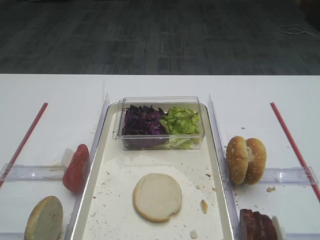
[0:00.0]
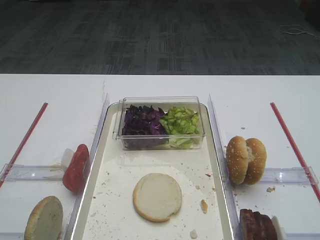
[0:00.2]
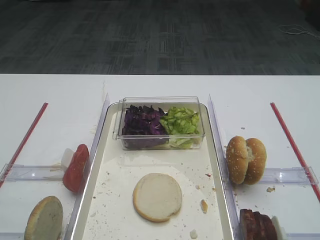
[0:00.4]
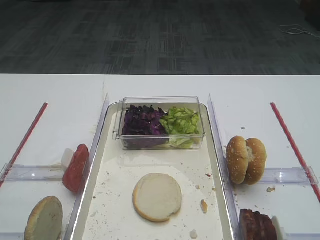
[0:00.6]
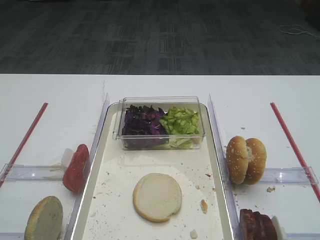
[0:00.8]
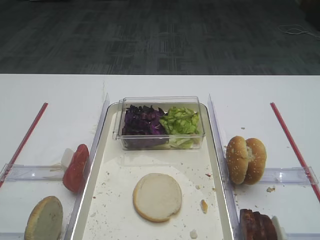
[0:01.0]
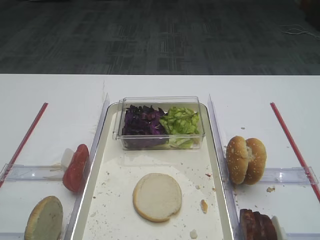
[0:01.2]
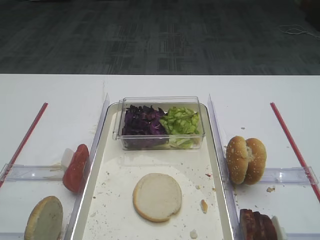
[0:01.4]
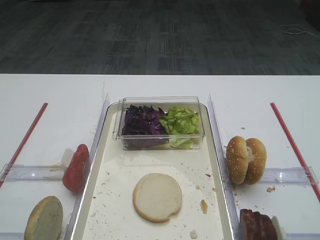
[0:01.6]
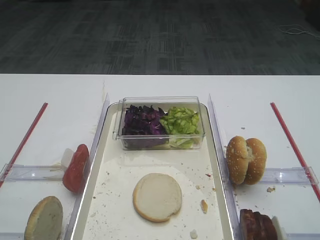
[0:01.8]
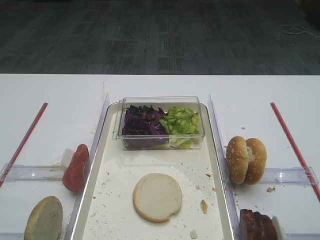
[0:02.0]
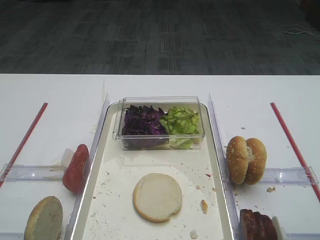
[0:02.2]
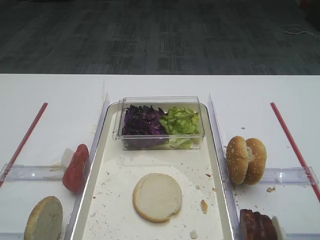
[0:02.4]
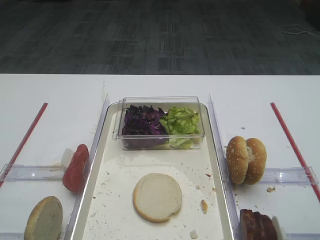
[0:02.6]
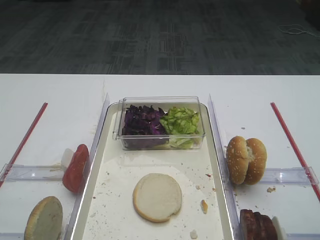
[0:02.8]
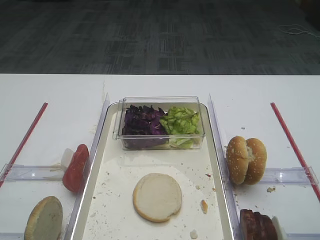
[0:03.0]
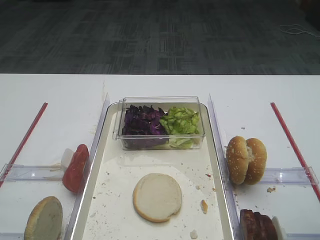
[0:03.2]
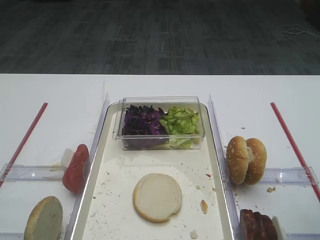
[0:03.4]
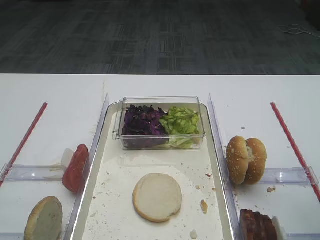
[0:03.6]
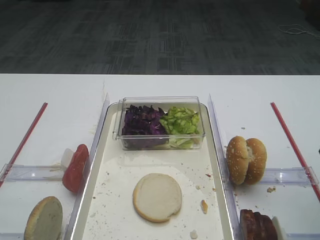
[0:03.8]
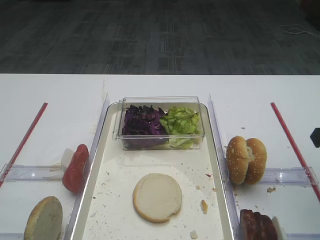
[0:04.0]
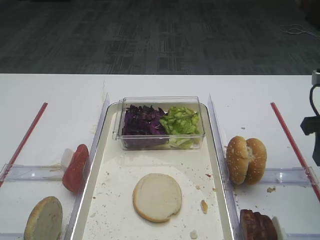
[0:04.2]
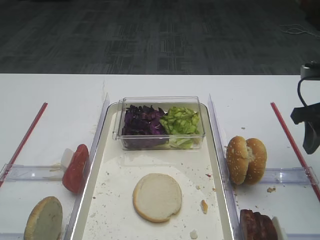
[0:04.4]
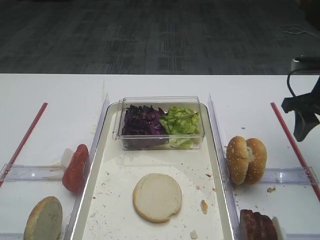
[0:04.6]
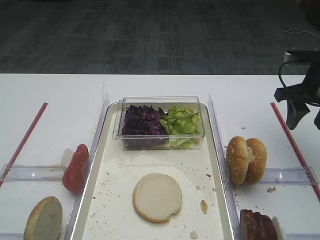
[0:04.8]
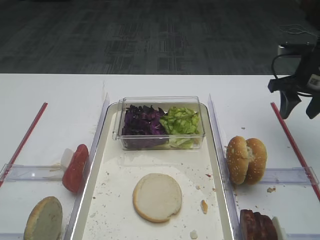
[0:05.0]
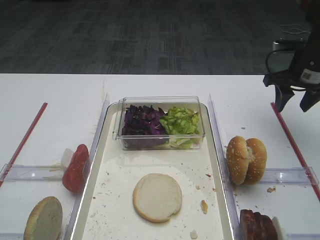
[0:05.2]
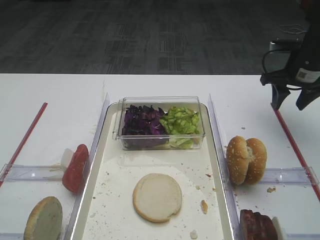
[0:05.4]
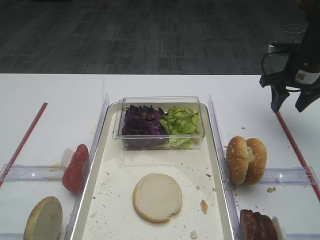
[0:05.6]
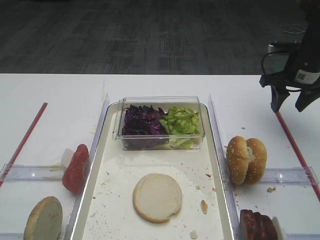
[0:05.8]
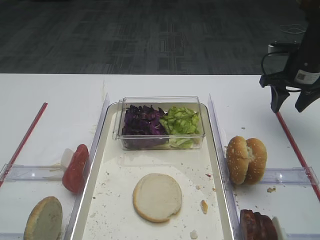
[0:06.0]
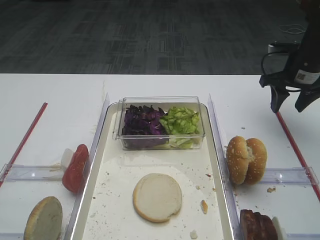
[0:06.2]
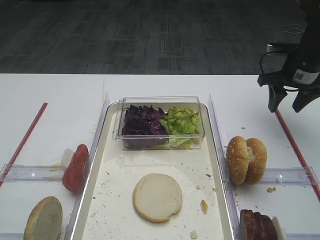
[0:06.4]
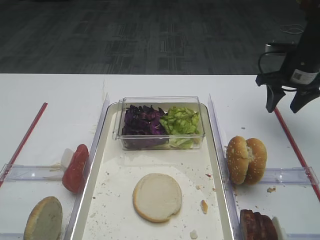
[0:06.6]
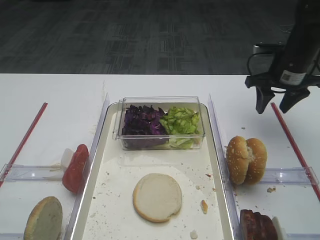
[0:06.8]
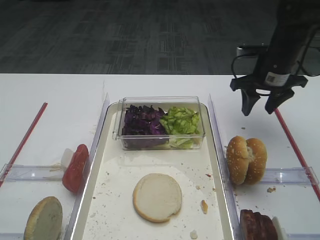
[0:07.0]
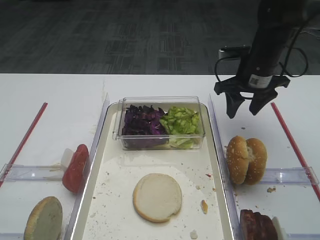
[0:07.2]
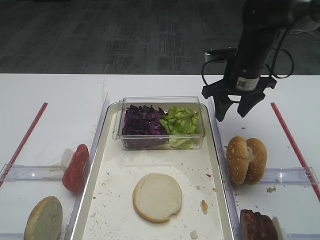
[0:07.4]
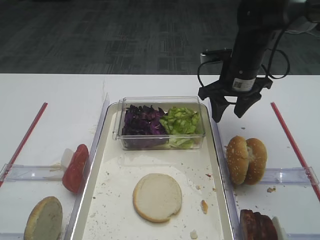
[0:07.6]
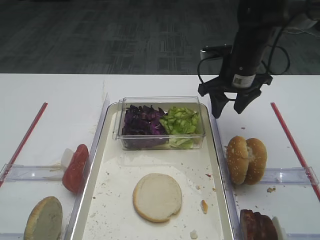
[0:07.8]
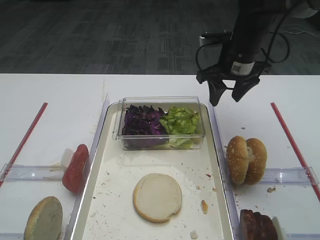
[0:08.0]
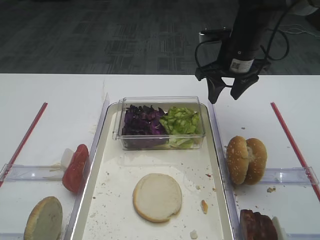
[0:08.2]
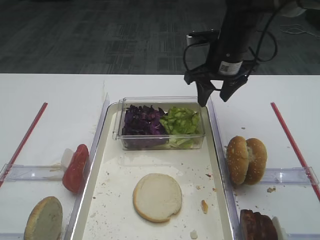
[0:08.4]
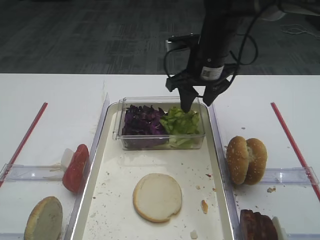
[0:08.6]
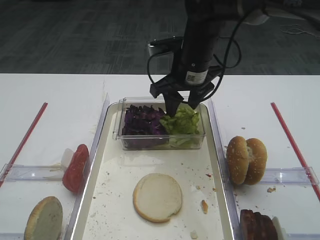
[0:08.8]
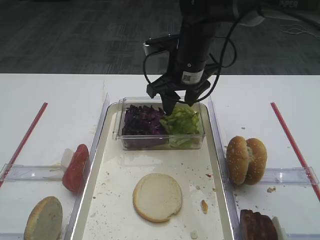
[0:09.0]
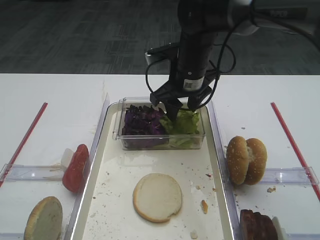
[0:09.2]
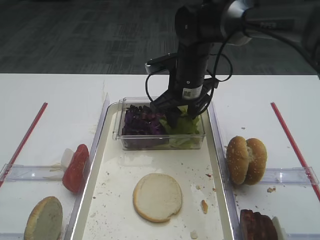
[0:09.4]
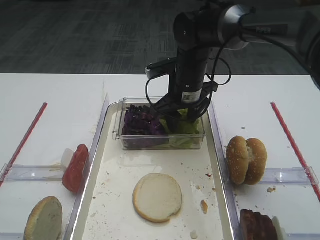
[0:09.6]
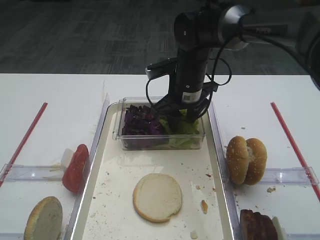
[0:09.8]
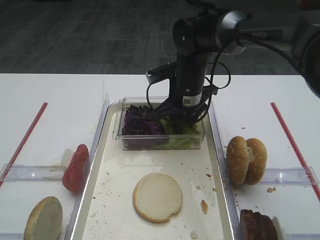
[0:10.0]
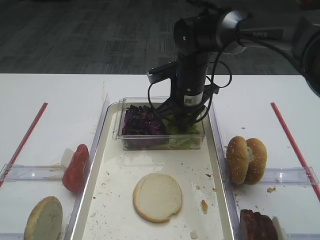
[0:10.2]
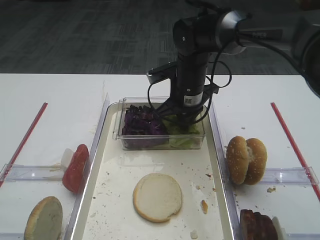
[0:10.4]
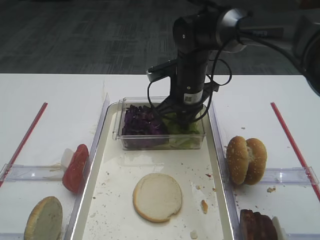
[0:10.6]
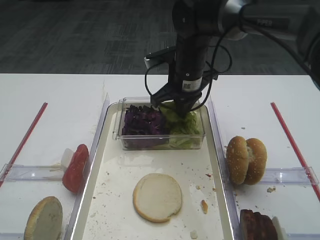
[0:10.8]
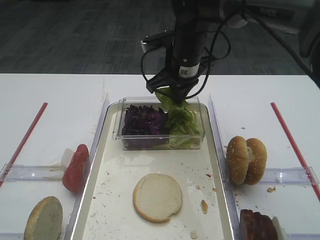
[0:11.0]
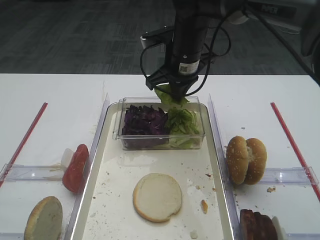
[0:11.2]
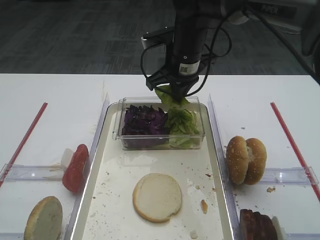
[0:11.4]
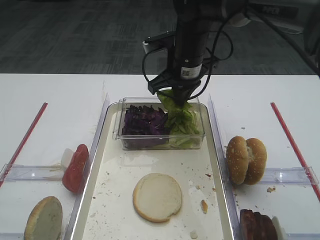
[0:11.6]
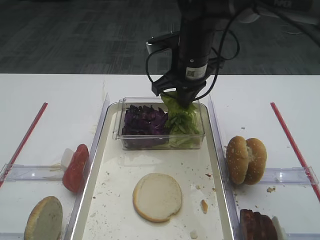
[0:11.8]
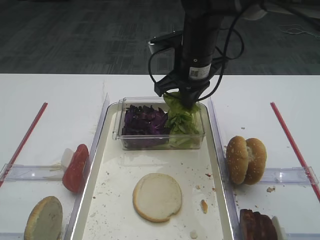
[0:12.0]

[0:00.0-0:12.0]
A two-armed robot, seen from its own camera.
Step, 0:00.0 to 0:10.8: Pick up the lettuce leaf with the right gripper.
0:03.0 to 0:04.4: The right gripper goes roughly 20 cm forward.
0:04.4 to 0:06.0: The right gripper heads forward, covering about 15 cm.
0:06.0 to 0:07.6: The right gripper is displaced to the left by some 15 cm.
0:07.6 to 0:09.0: The right gripper travels to the left by some 10 cm.
0:09.0 to 0:10.4: The right gripper is displaced downward by approximately 5 cm, and closes.
0:10.4 to 0:12.0: The right gripper is displaced upward by about 5 cm.

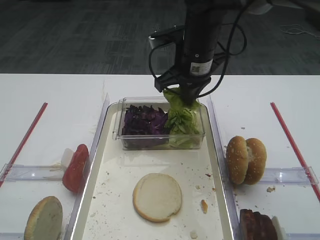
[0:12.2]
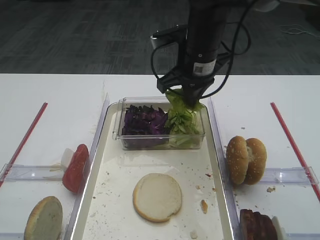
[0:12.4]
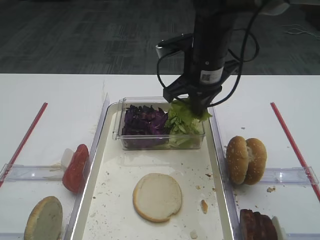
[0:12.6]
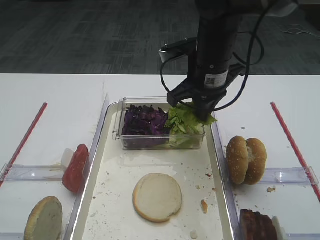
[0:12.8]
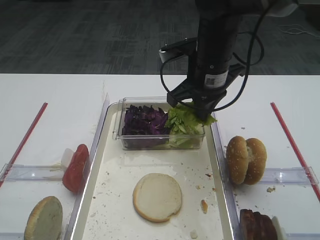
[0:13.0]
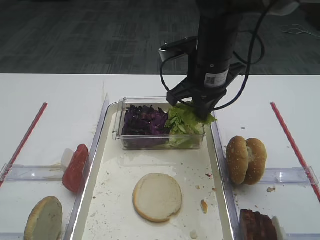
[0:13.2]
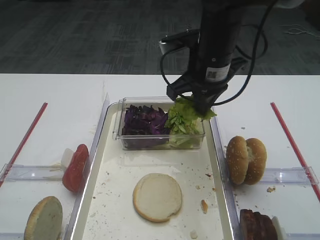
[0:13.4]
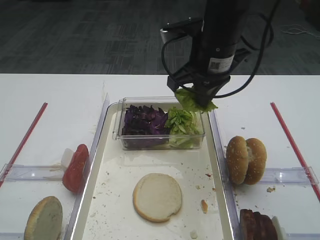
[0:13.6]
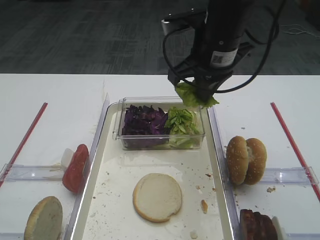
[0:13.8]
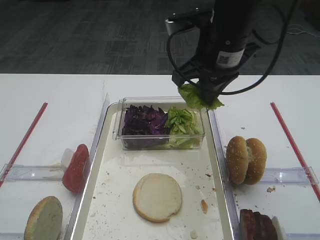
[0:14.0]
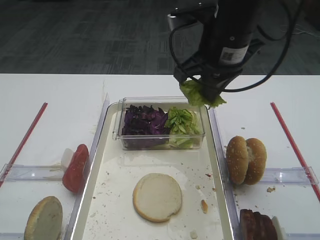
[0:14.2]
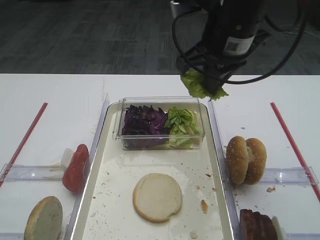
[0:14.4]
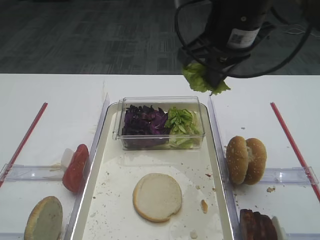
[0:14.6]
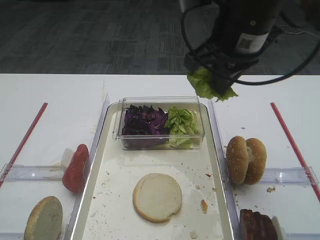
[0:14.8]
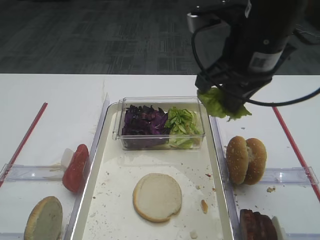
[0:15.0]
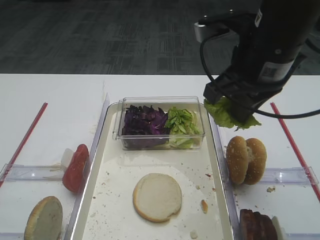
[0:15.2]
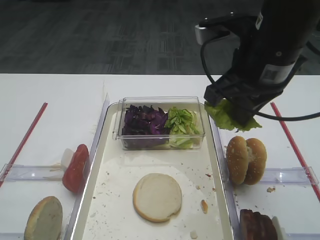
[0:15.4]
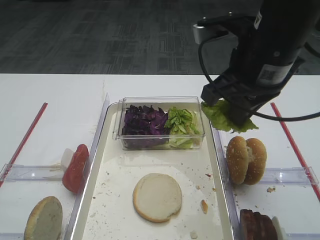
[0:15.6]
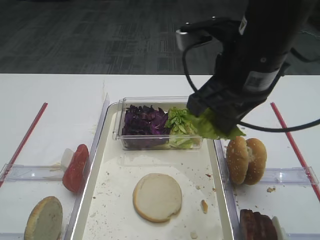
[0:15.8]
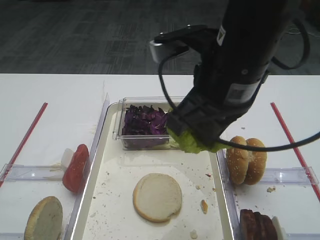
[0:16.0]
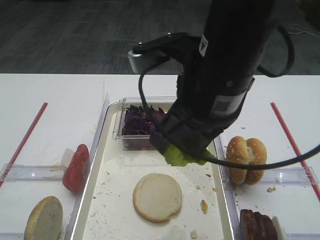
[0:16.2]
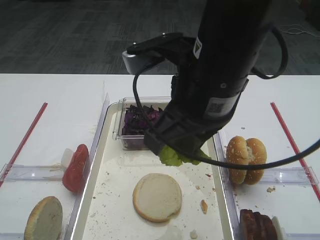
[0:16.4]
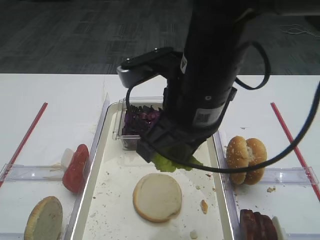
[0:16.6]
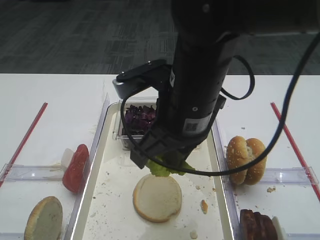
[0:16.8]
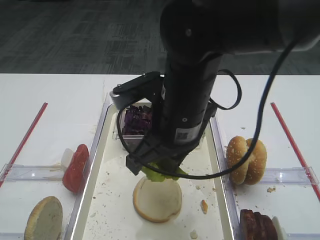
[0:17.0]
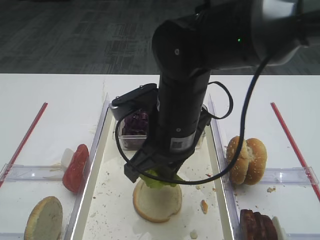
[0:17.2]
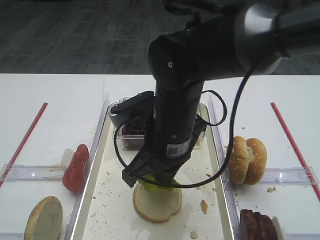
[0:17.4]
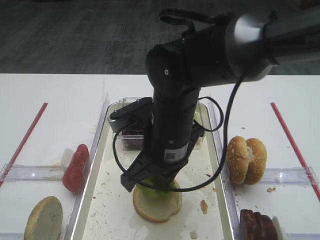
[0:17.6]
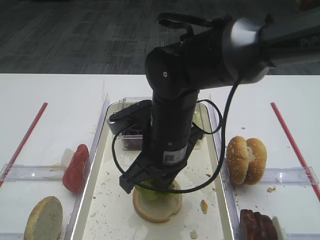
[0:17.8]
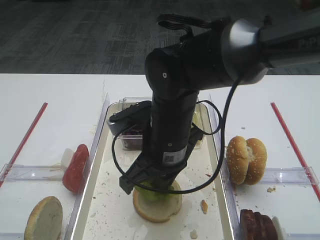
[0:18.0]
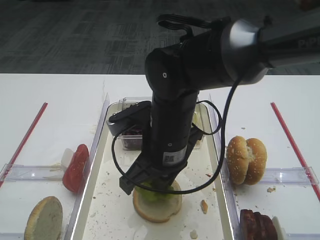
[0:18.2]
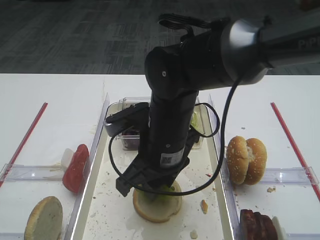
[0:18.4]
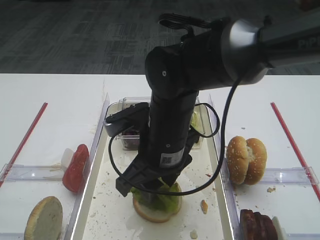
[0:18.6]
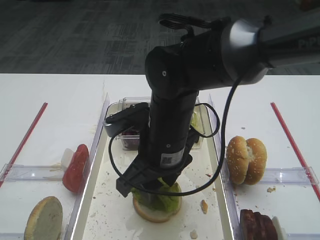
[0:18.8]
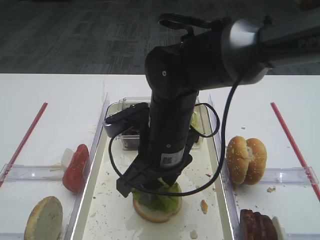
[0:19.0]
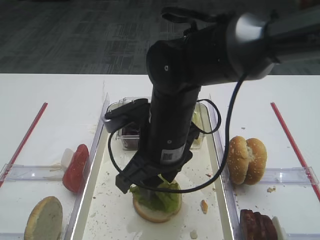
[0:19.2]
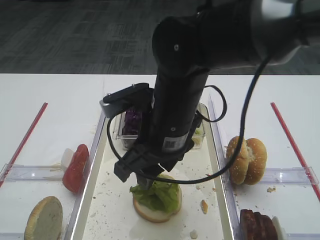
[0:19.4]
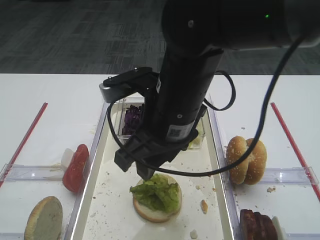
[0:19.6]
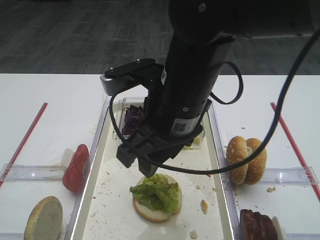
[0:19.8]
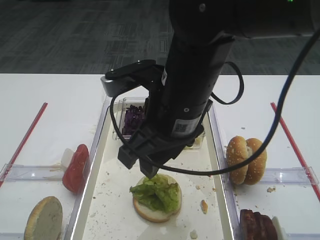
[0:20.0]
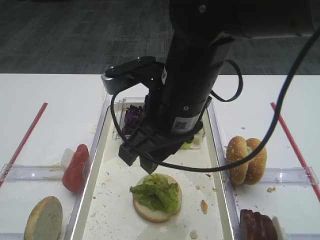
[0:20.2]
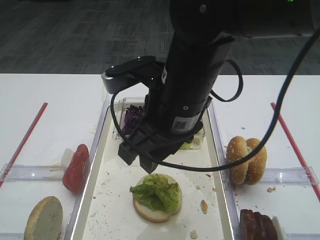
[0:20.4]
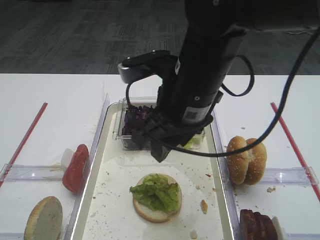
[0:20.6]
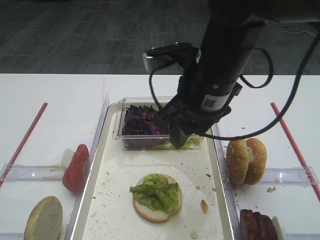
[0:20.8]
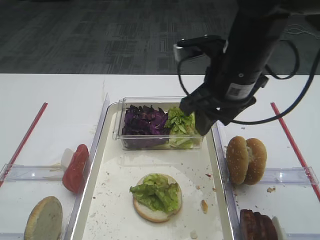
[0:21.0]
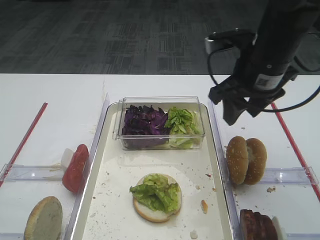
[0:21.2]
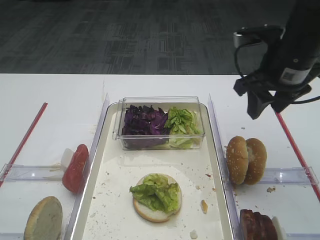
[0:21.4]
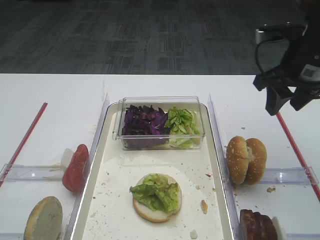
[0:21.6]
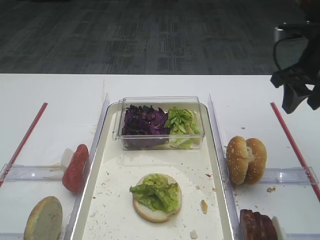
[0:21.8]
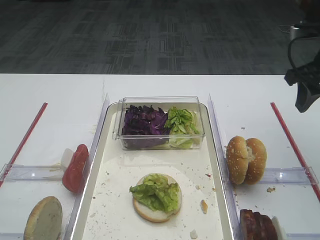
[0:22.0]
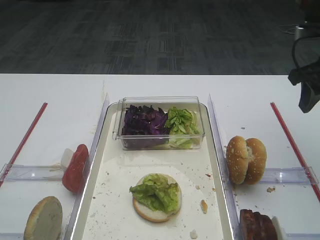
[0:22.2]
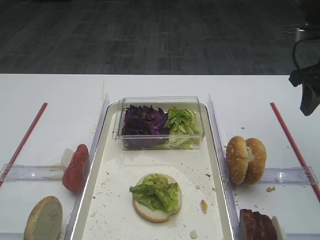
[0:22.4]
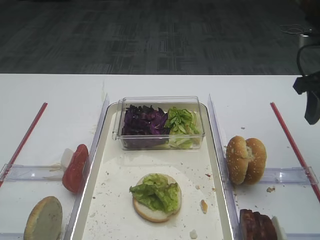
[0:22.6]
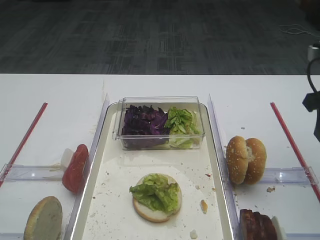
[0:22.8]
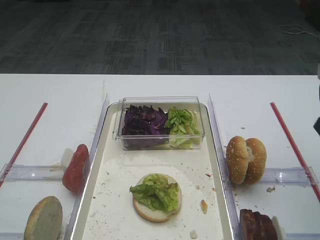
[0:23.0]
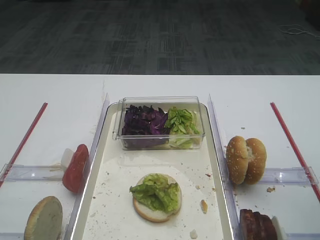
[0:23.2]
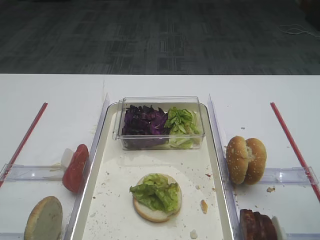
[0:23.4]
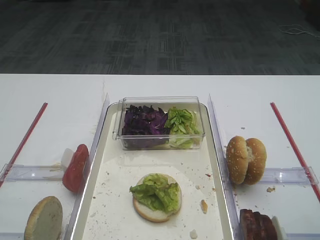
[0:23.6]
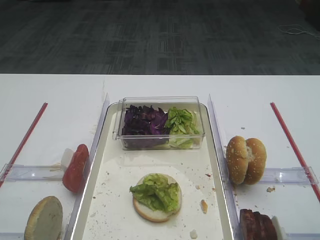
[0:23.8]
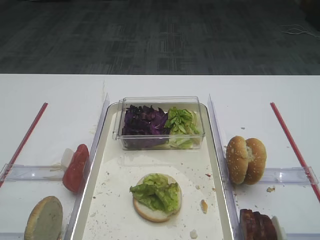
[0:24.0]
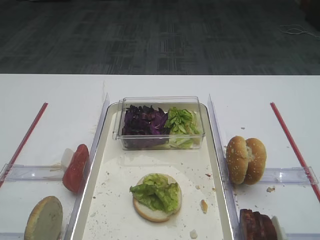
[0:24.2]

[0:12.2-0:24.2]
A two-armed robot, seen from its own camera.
Step, 0:12.2 to 0:19.6: Place the lettuce leaf on the bread slice with the right gripper.
0:12.2 to 0:13.8: The right gripper ends up some 5 cm from where it was.
0:13.8 to 0:15.2: The right gripper is displaced backward by some 10 cm.
0:15.2 to 0:16.6: The right gripper goes some 10 cm to the left.
0:16.6 to 0:18.2: The right gripper heads downward, covering roughly 10 cm.
0:18.2 to 0:19.8: The right gripper shifts some 10 cm upward, and opens its fingers.
0:19.8 to 0:21.2: The right gripper is displaced to the right and forward by about 15 cm.
0:21.2 to 0:22.6: The right gripper shifts about 15 cm to the right.
0:22.6 to 0:24.2: The right gripper shifts some 25 cm backward.
